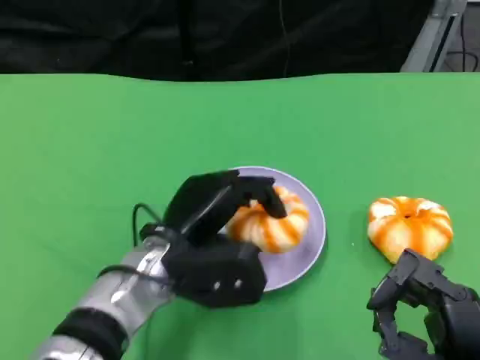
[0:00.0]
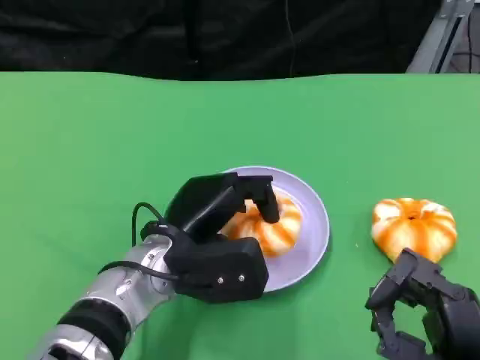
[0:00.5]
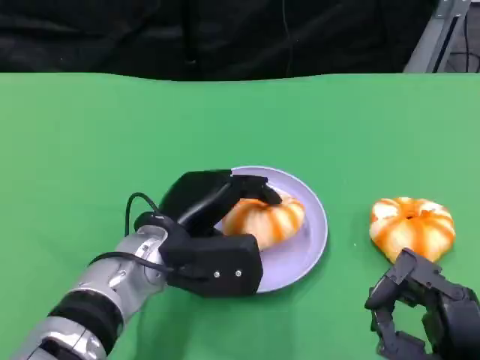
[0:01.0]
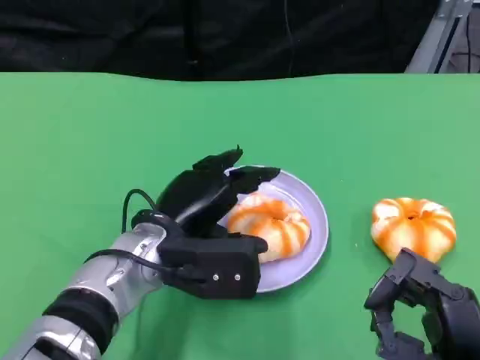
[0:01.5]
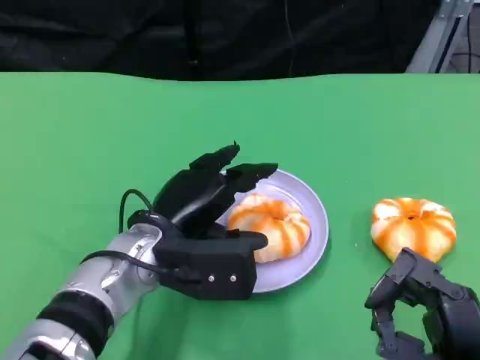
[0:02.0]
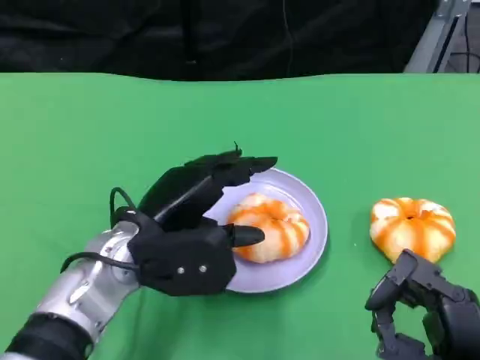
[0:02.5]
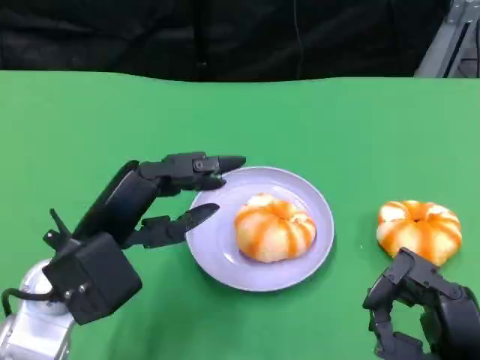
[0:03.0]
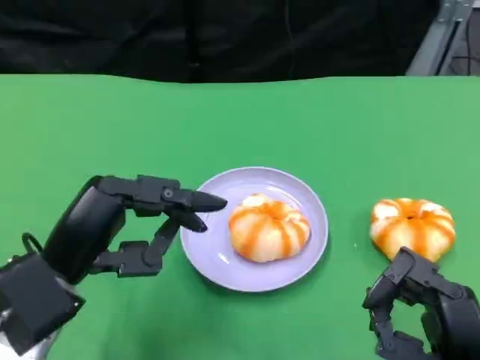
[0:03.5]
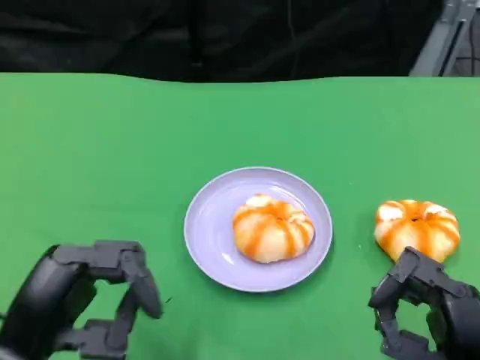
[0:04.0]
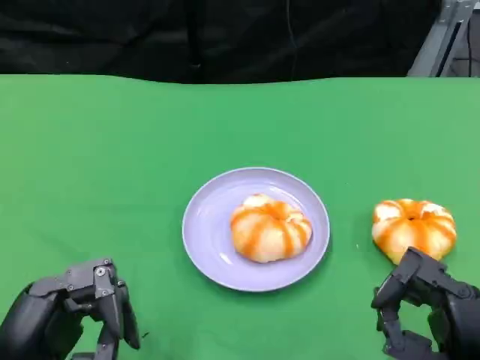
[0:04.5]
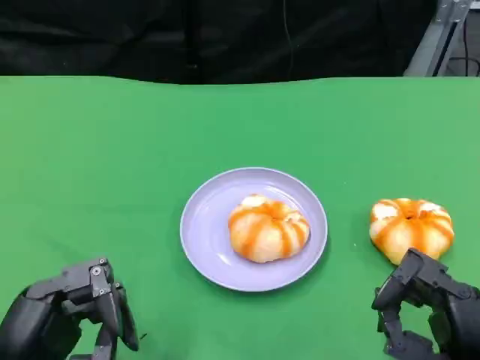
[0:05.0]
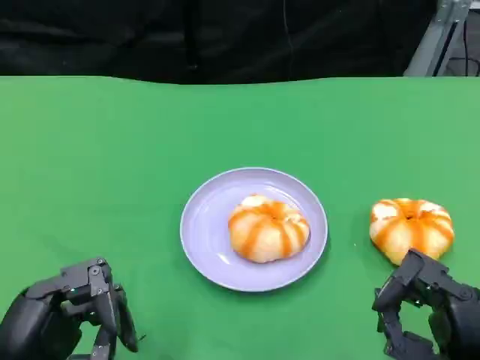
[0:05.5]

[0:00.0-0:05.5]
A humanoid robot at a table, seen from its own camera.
Task of the whole recording: Grasp the bread from the table and place it into the plate.
0:00.0 to 0:02.0: The hands make only small movements.
0:02.0 to 0:03.5: The left hand goes about 10 cm to the left and backward.
0:03.5 to 0:05.5: The left hand goes roughly 10 cm backward.
